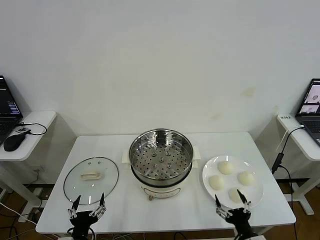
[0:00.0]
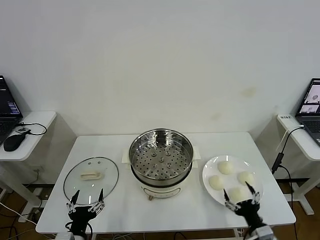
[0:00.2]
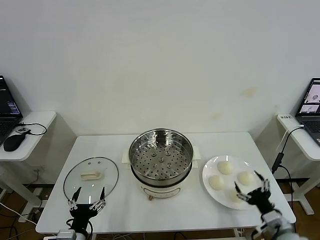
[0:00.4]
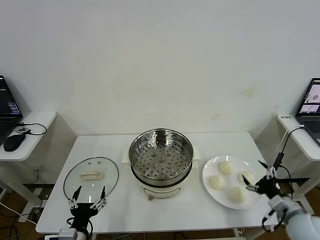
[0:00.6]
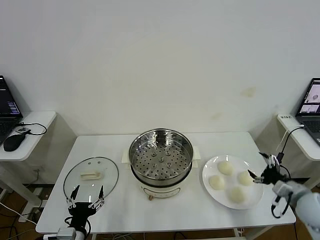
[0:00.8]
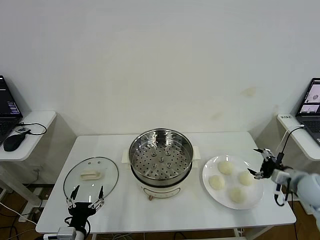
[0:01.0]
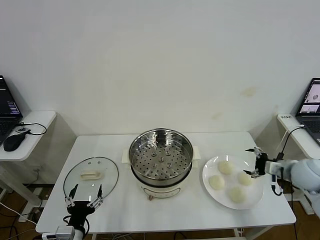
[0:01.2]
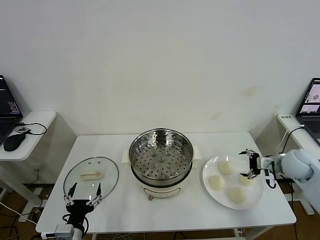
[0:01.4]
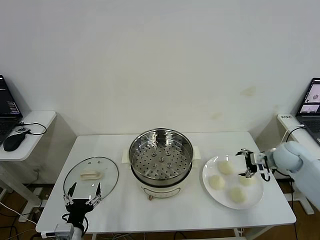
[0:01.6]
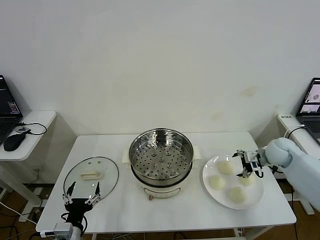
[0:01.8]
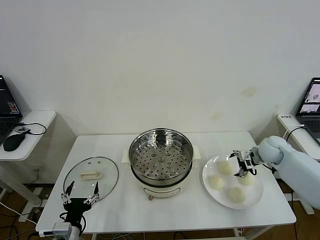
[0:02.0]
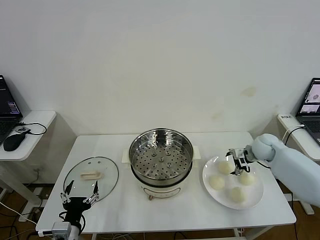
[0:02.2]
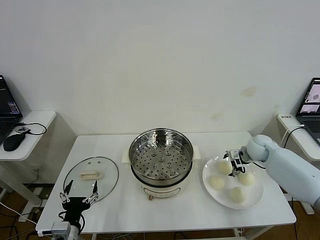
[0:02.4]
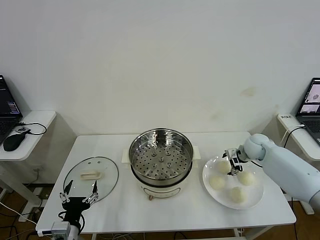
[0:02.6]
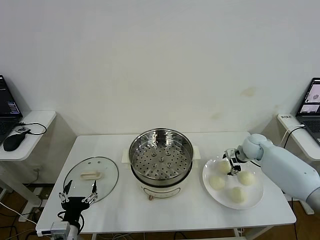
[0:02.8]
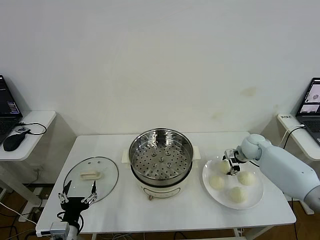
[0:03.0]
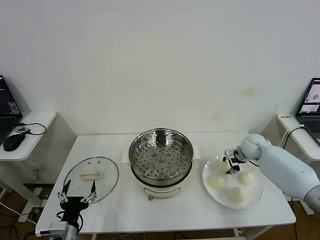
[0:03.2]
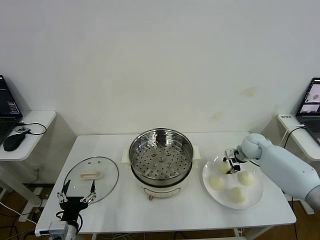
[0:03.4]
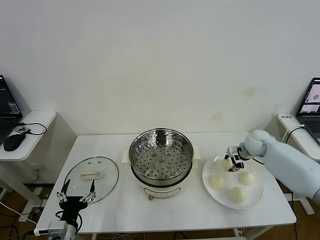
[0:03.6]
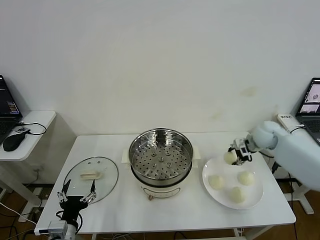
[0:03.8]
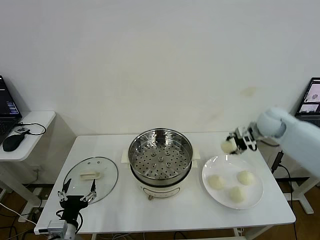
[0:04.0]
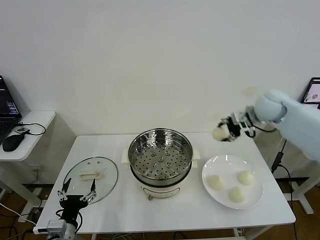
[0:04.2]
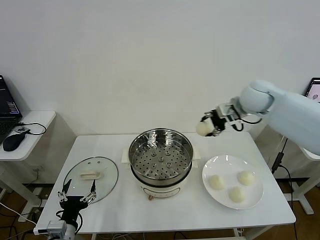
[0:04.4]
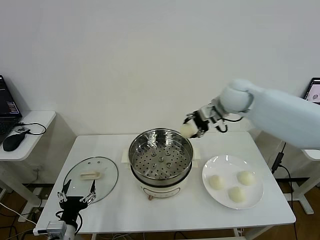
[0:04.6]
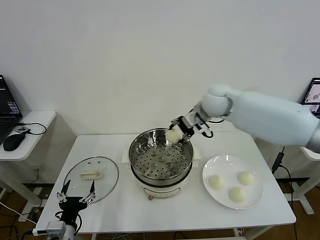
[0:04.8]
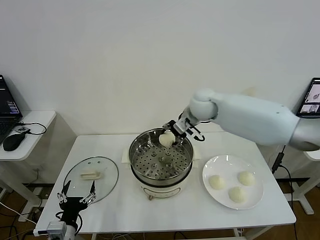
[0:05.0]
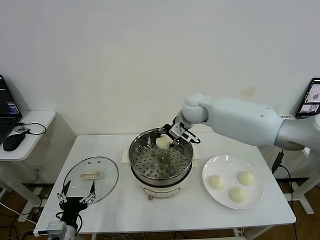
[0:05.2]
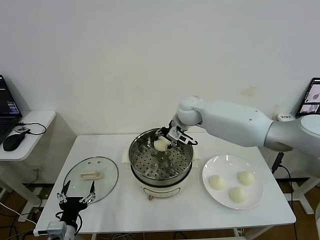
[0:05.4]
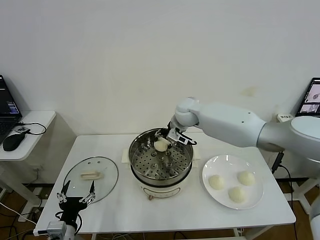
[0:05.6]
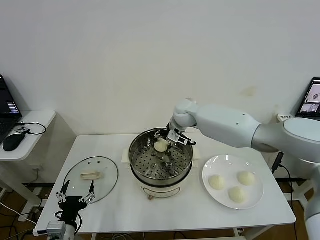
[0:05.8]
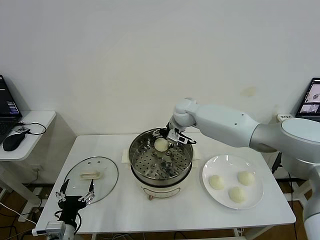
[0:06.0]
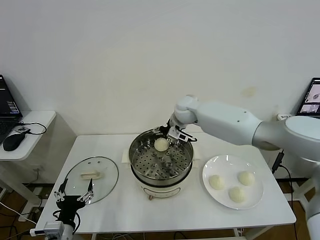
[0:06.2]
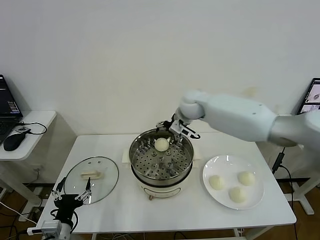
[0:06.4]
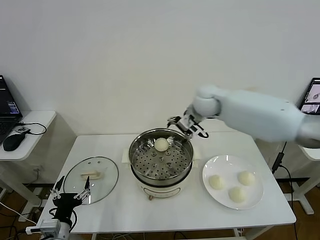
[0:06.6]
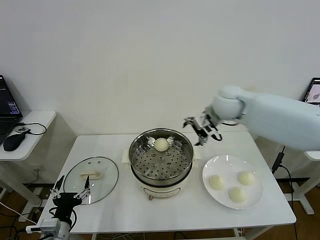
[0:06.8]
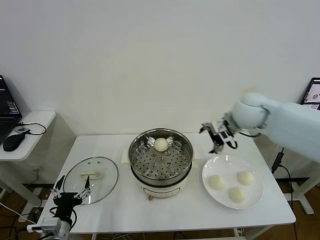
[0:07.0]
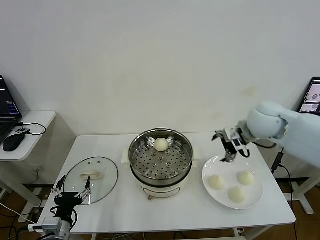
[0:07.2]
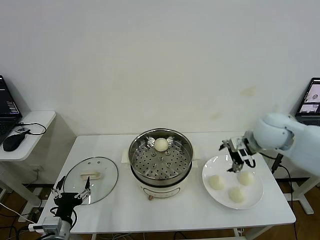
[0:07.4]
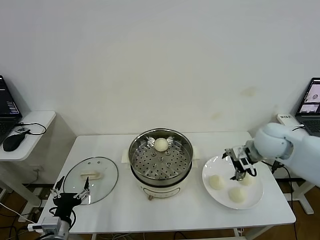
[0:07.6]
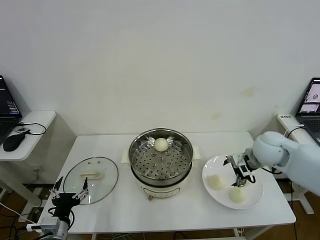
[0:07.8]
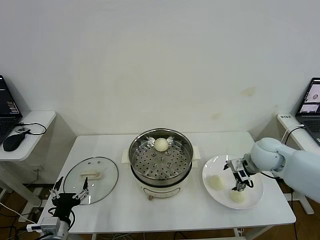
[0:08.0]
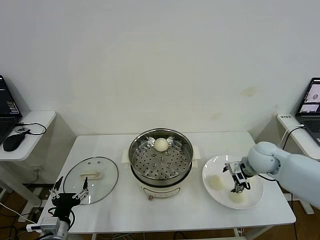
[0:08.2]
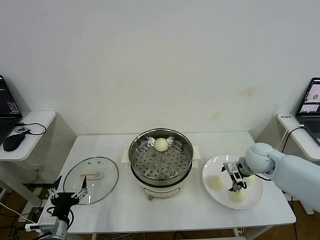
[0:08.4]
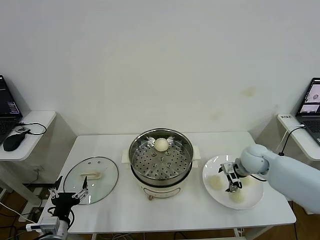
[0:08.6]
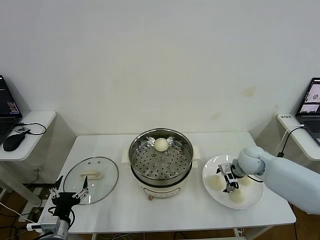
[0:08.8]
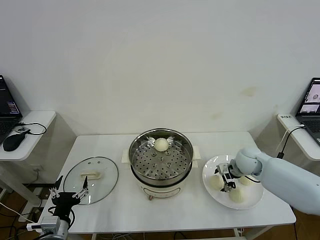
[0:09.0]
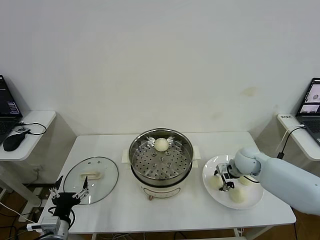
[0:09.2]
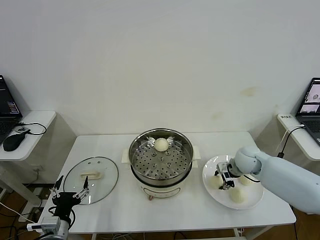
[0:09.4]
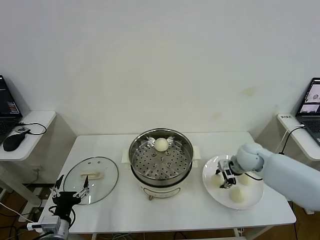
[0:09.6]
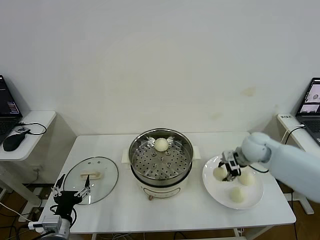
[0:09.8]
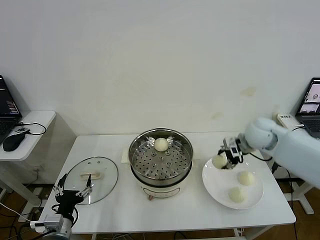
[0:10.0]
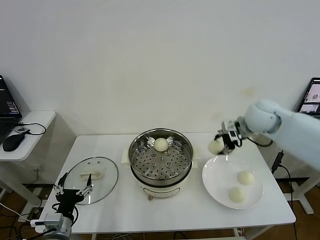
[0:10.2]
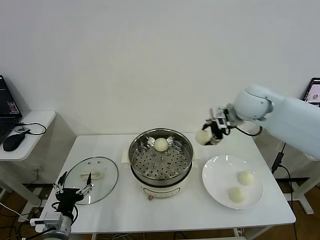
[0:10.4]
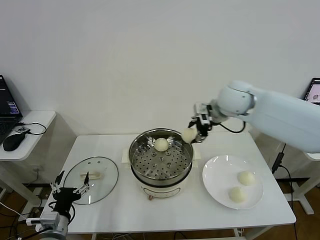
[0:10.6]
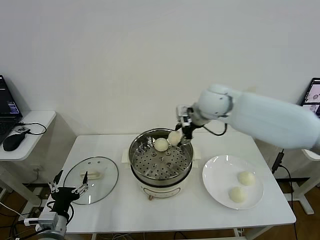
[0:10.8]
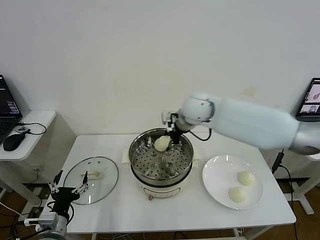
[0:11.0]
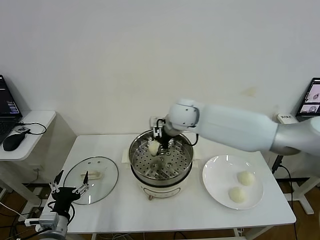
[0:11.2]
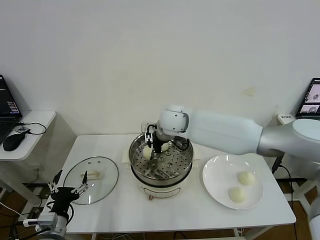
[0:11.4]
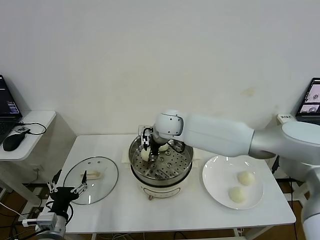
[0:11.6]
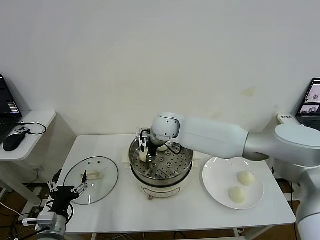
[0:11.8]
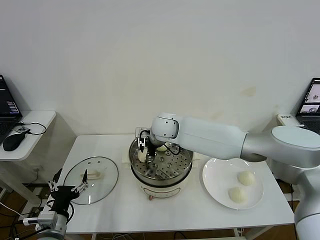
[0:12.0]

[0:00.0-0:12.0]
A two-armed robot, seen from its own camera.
Step, 0.0 to 3.2 s: Grasp the baozi in the plate with right gripper.
Step, 3.4 to 6.0 s: Place the baozi on the steamer with right gripper.
Step, 6.2 to 9.4 s: Grasp the baozi in the plate with right gripper.
1.6 to 3.0 s: The right gripper goes some 10 cm forward, to the left and downward, and closes.
3.0 to 4.4 s: The right gripper is displaced upward and to the left by some 25 cm.
4.4 to 6.0 s: The right gripper travels to the left and downward by some 20 cm, and opens.
6.0 to 7.6 s: The right gripper moves to the right and backward, some 30 cm.
7.6 to 9.0 s: The right gripper moves downward, some 15 cm.
9.0 to 10.4 s: The right gripper heads upward, covering some 25 cm.
10.4 to 12.0 s: The right gripper is displaced to the left and downward by some 25 cm, and opens.

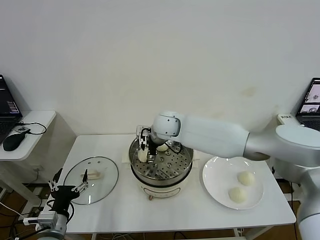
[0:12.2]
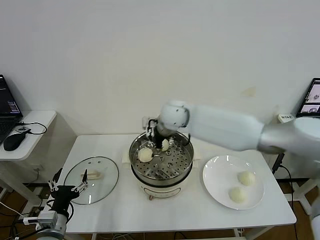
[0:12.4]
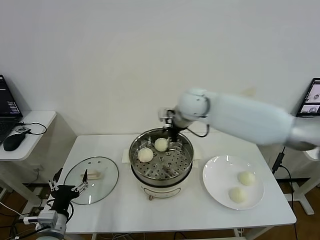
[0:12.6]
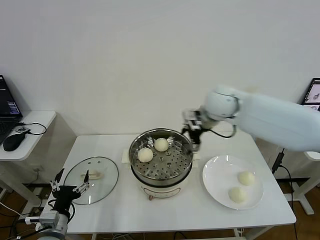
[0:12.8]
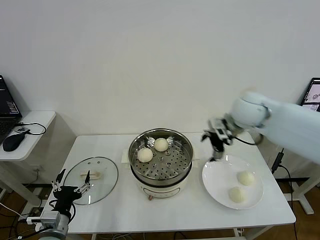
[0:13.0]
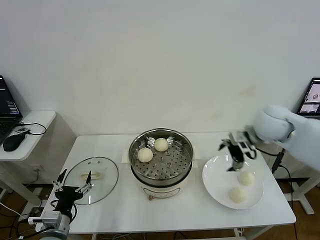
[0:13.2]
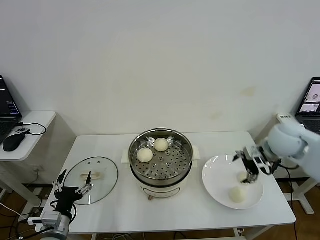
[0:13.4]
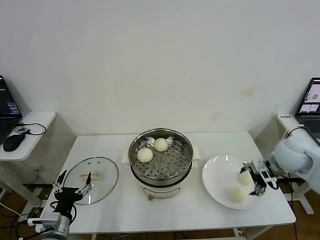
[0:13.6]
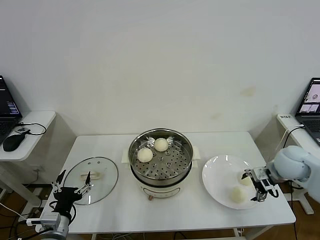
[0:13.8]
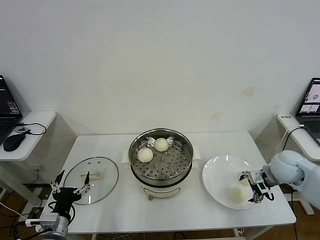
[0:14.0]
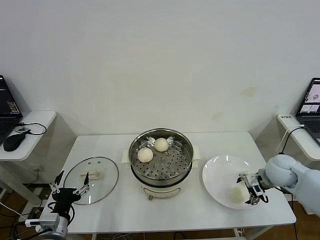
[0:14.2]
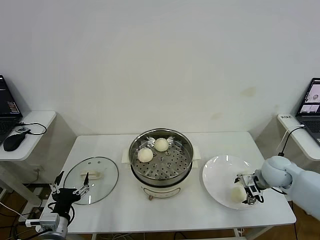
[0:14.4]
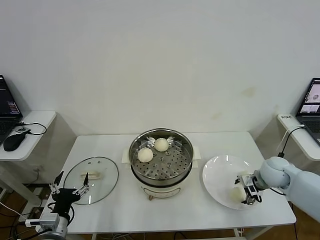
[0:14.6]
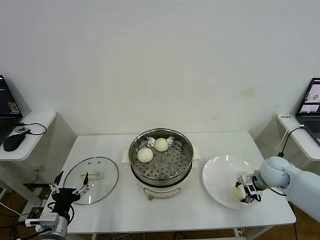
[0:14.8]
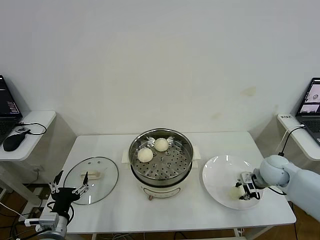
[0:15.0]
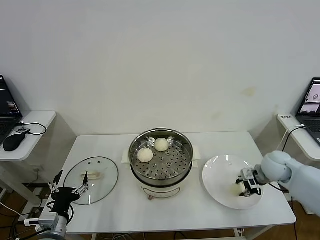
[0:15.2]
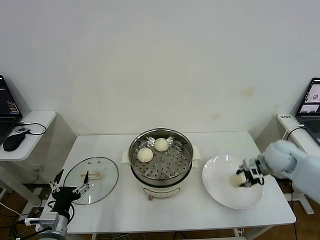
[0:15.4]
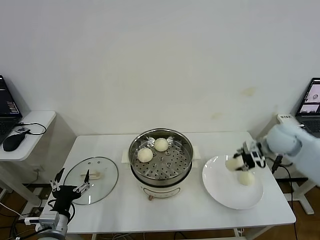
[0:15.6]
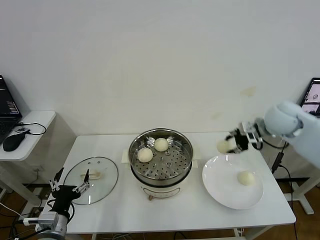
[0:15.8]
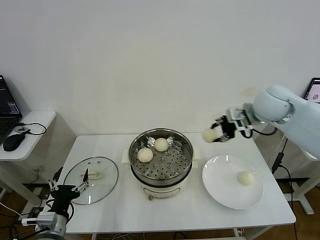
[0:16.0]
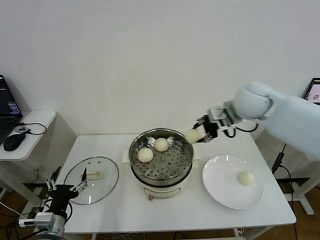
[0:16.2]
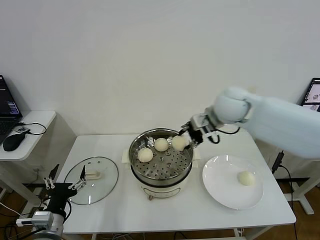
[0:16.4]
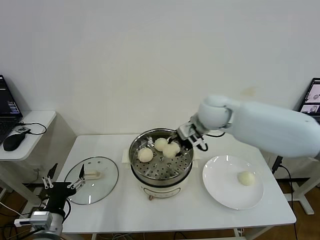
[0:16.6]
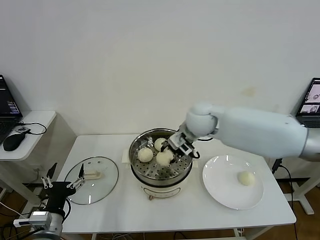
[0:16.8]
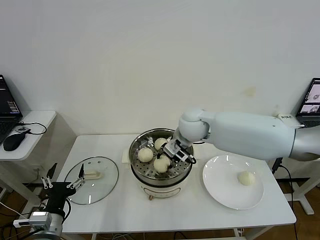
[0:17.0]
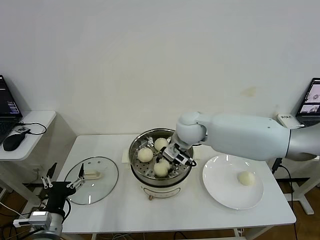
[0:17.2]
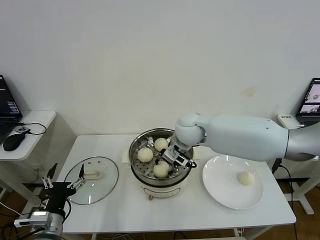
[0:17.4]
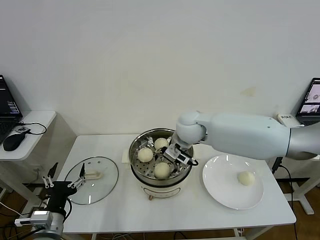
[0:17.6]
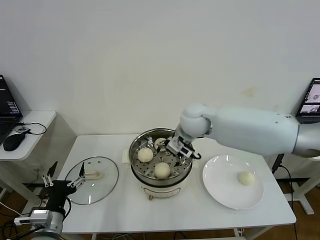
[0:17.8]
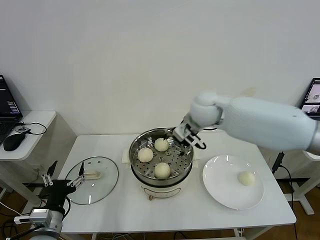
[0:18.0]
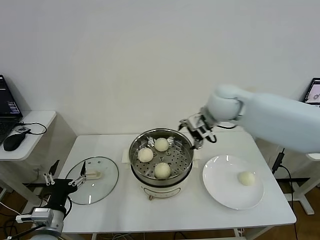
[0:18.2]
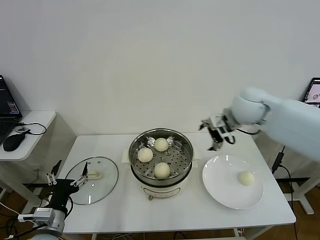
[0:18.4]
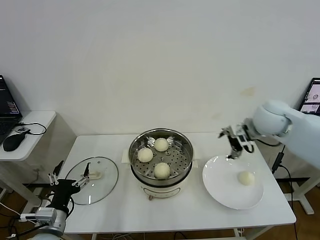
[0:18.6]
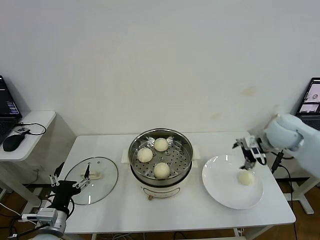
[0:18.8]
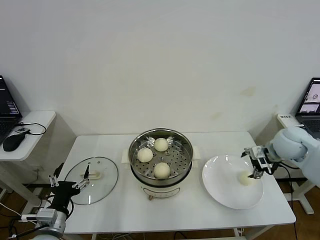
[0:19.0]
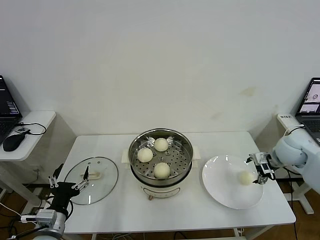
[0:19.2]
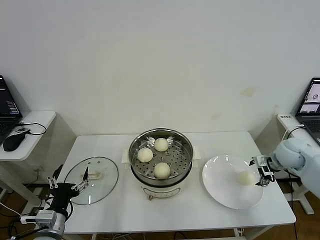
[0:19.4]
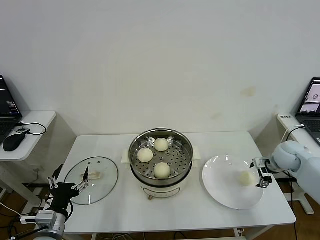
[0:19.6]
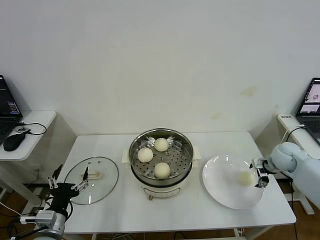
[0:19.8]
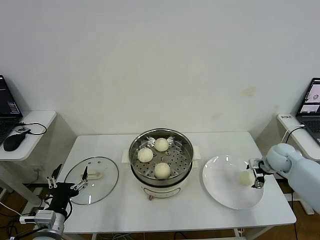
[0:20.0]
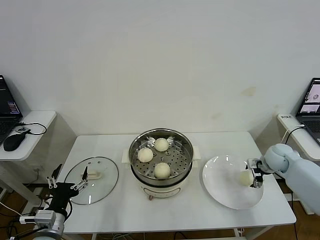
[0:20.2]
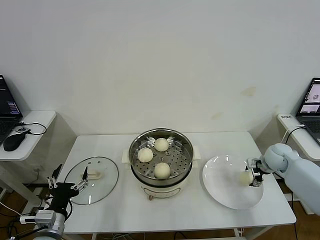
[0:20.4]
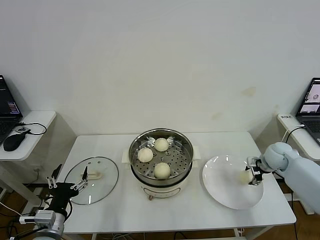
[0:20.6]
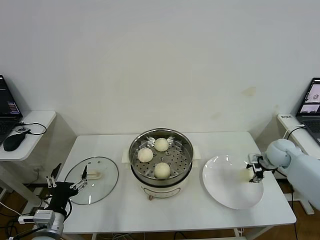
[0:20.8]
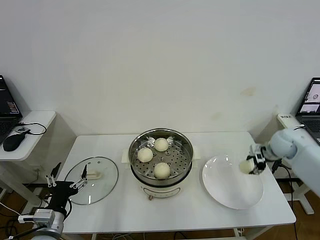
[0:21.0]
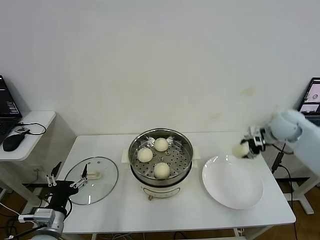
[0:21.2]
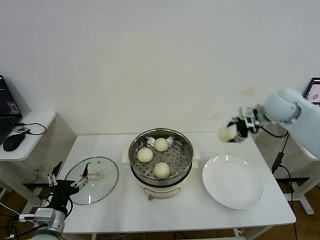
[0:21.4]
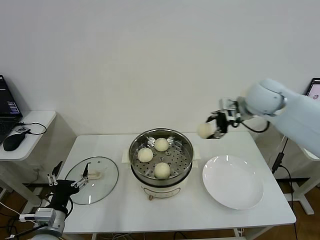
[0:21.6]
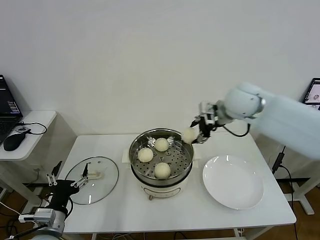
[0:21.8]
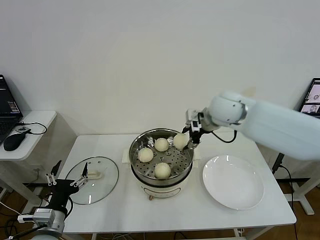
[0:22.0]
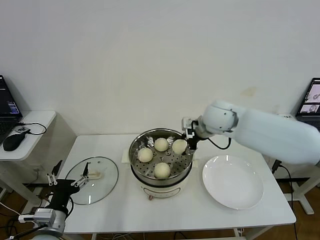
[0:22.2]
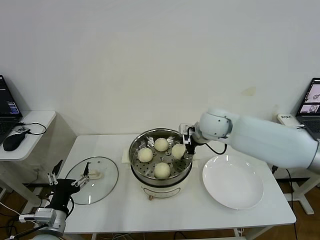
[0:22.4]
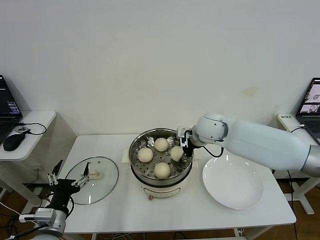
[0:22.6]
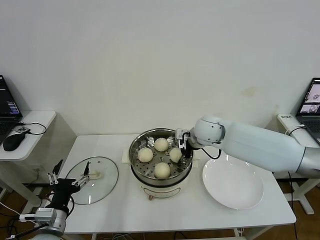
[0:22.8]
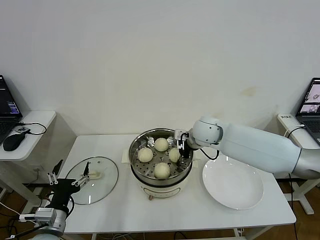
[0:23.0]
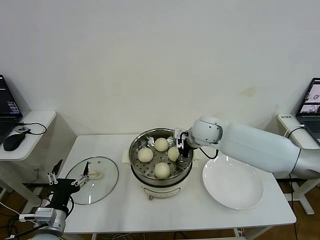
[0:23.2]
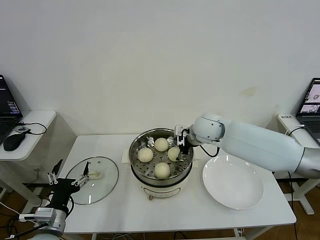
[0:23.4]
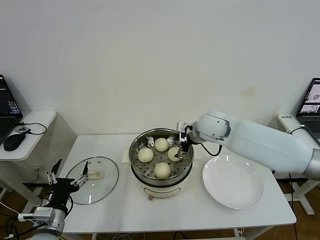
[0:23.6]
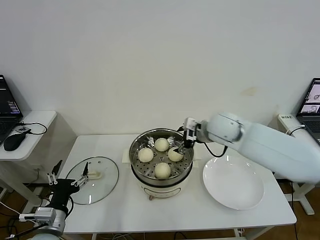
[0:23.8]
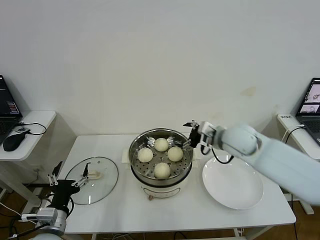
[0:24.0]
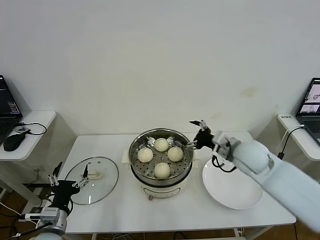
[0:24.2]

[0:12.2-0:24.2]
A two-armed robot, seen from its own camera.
Step, 12.2 to 14.8 s: Grasp the baozi in the plate with right gripper.
Step, 15.2 to 17.6 s: Place the baozi on the steamer with right gripper.
Step, 17.8 to 20.6 s: Grasp the baozi in the plate with right gripper.
Step, 20.8 to 23.4 s: Place the baozi on the steamer with right gripper.
12.2 to 13.8 s: The right gripper moves to the right, roughly 35 cm.
13.8 to 15.2 s: The right gripper closes its fingers.
15.2 to 16.6 s: The right gripper moves to the left and upward, roughly 30 cm.
16.6 to 18.2 s: The right gripper goes about 5 cm to the right, and opens its fingers.
18.2 to 19.8 s: The right gripper is displaced to the right and downward by about 35 cm.
19.8 to 21.2 s: The right gripper is displaced upward by approximately 15 cm, and closes its fingers.
21.2 to 22.6 s: The right gripper travels to the left by some 25 cm.
22.6 to 24.2 s: The right gripper shifts some 15 cm to the right and backward, and opens up.
